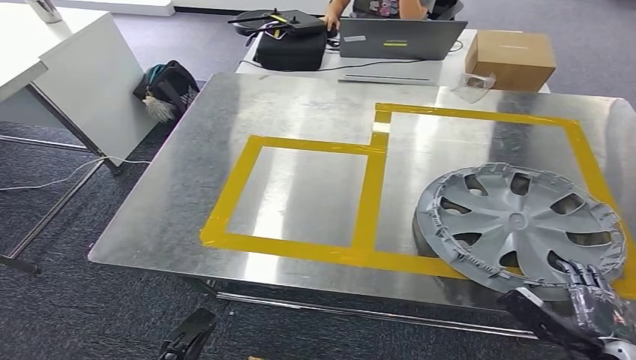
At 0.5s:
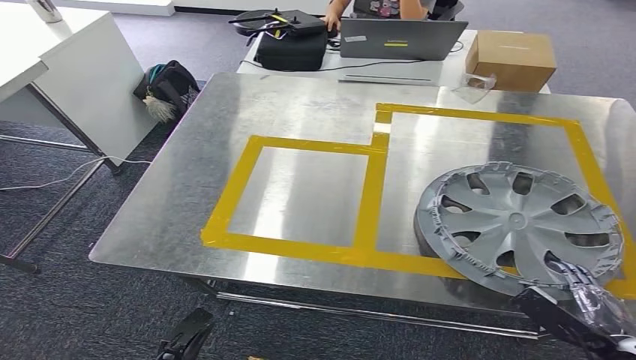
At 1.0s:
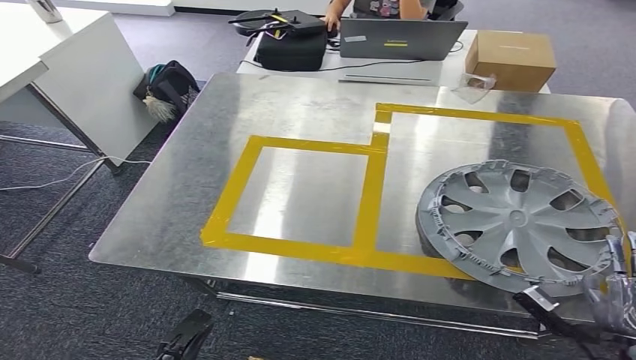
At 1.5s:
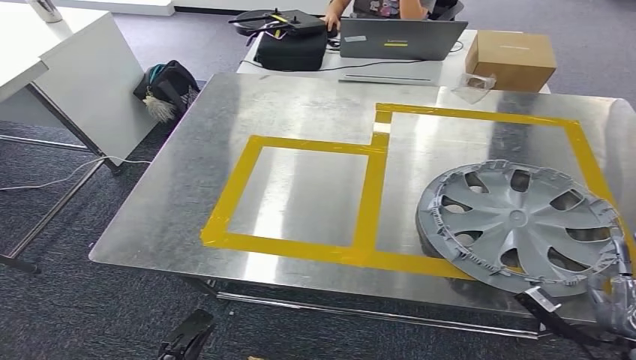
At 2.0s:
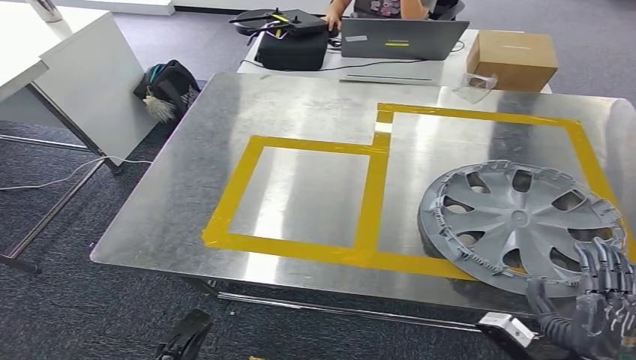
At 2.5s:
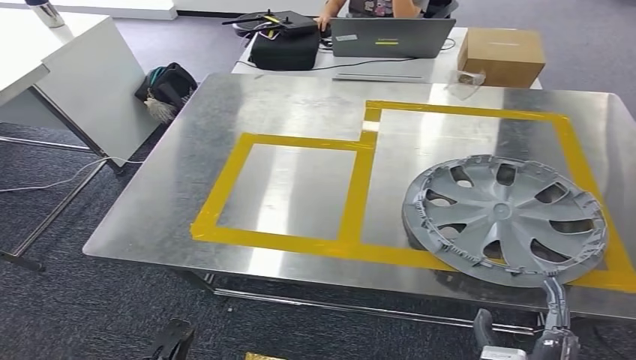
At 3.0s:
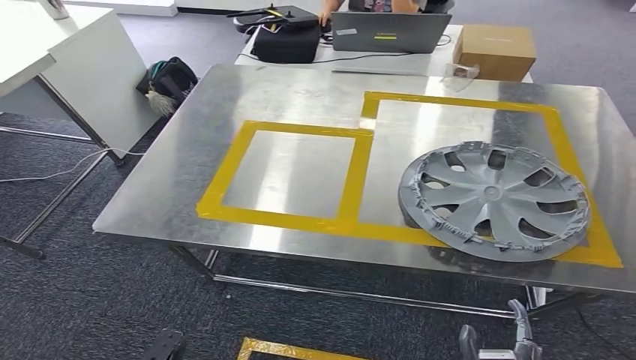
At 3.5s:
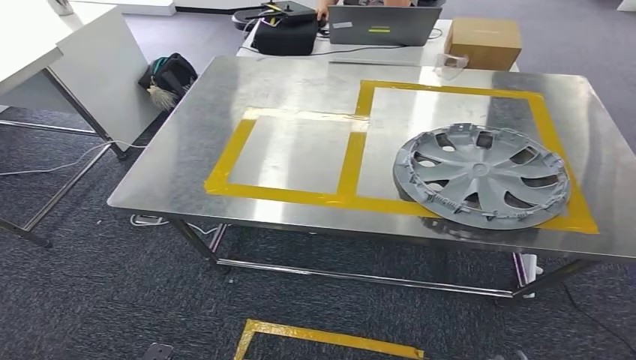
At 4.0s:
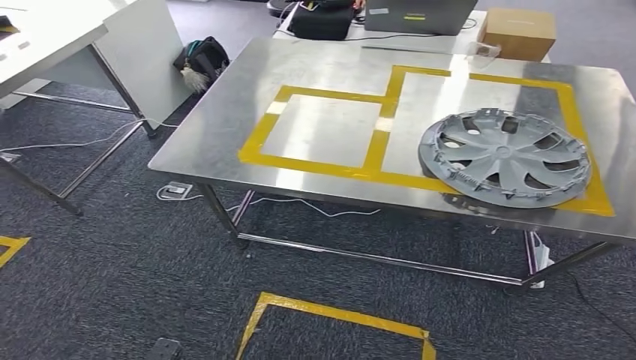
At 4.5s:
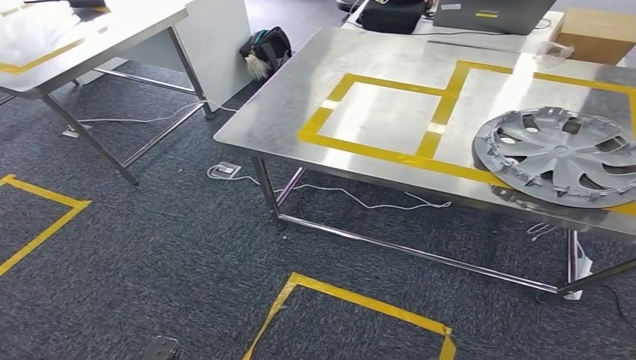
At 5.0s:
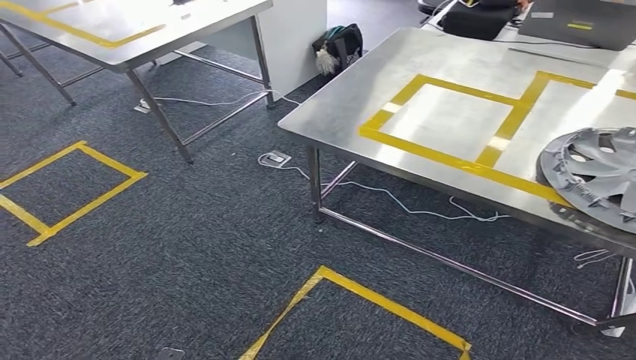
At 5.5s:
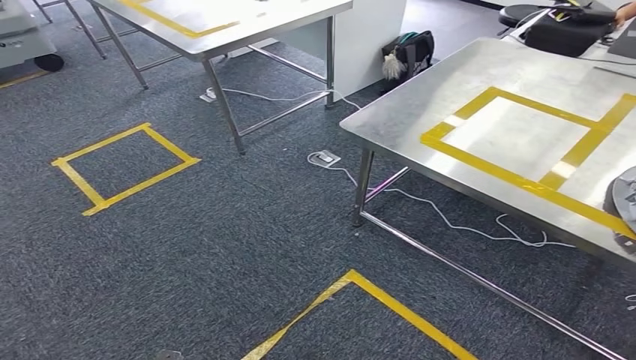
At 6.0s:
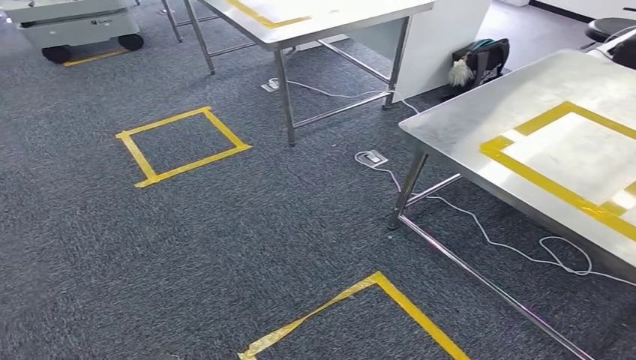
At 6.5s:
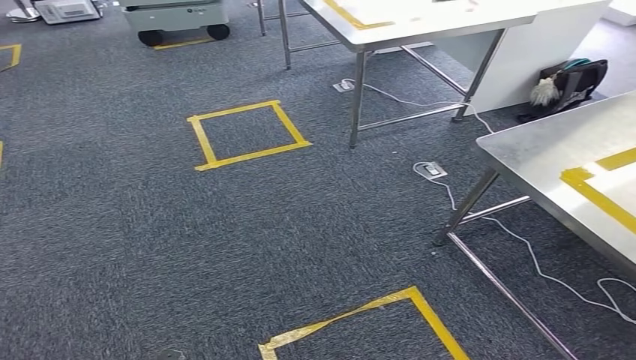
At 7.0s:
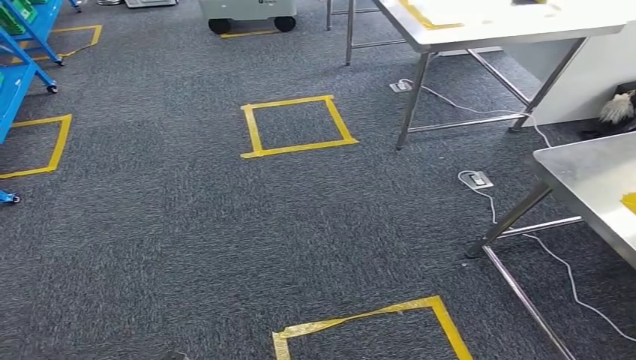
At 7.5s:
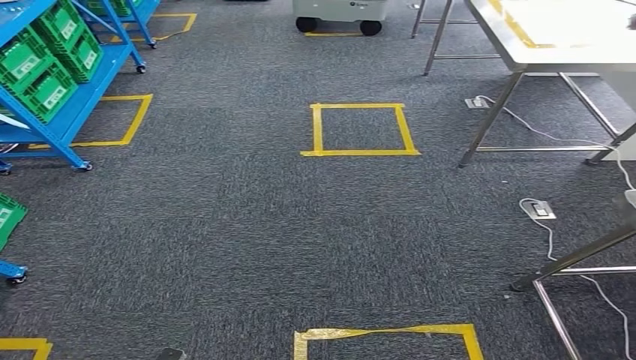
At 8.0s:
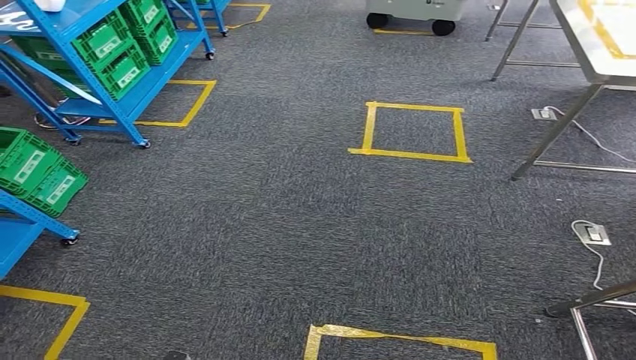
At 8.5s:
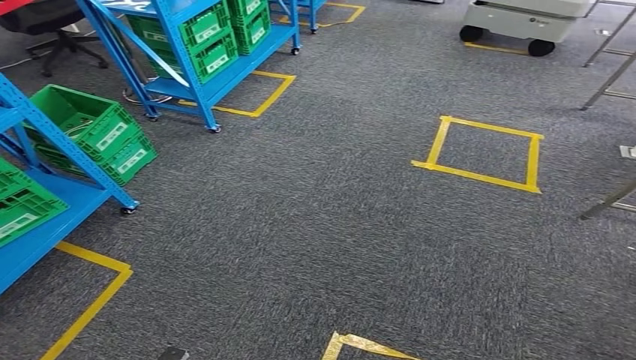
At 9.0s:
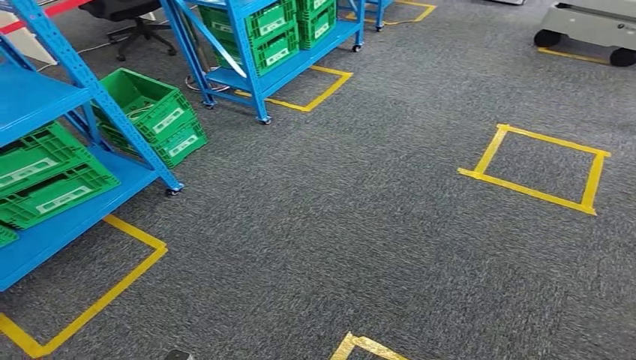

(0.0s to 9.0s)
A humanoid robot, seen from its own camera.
Step, 0.0s - 2.5s: Insert the small component into the corresponding slot on the workbench.
0.0s - 2.0s: The right hand shifts approximately 5 cm to the left.

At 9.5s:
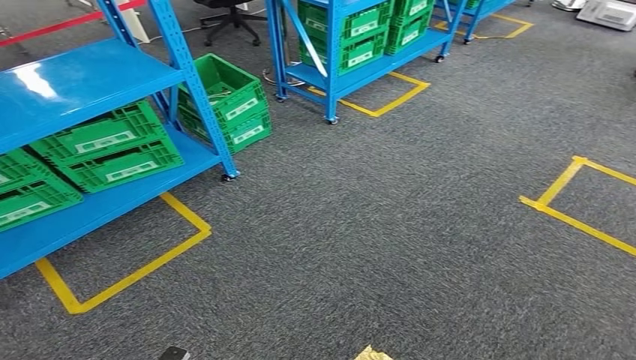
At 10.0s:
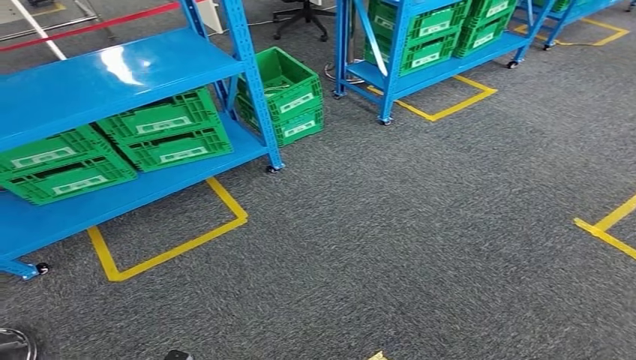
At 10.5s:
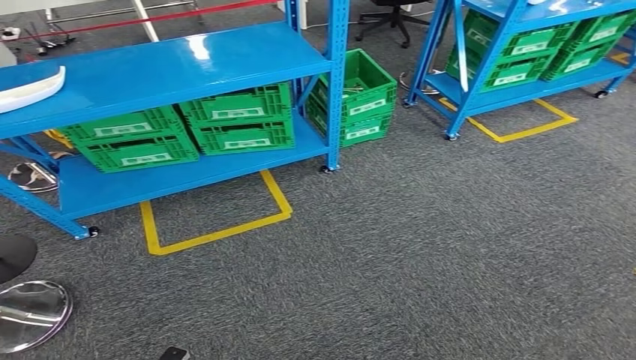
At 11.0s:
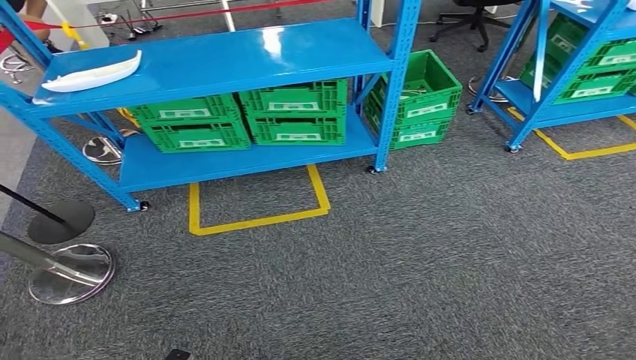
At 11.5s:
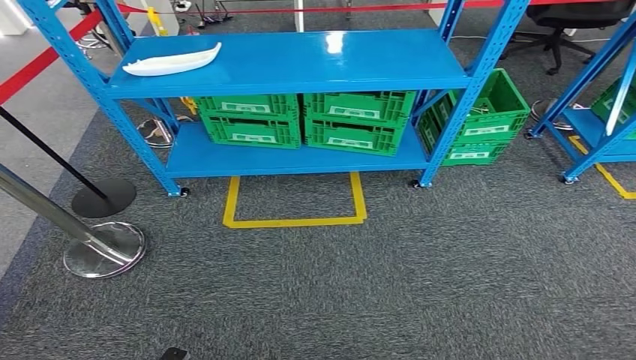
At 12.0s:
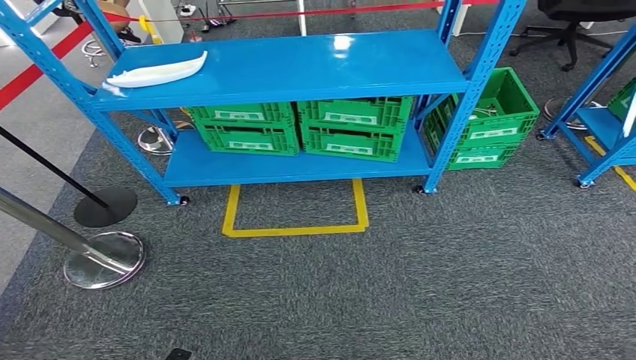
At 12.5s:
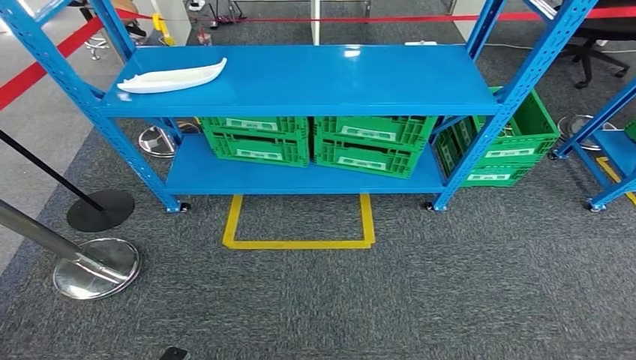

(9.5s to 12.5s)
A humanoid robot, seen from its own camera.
Step, 9.5s - 12.0s: Return to the initial position at the workbench.
